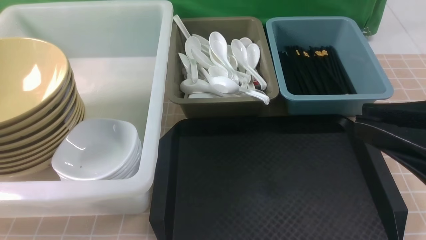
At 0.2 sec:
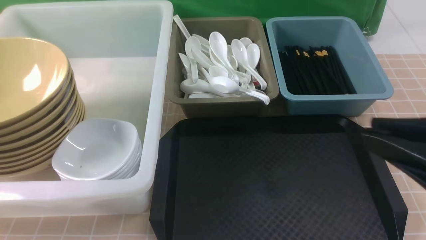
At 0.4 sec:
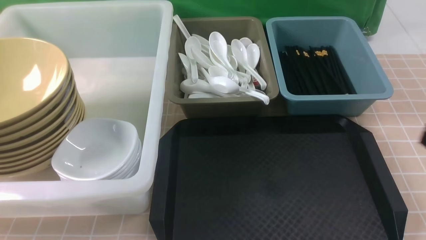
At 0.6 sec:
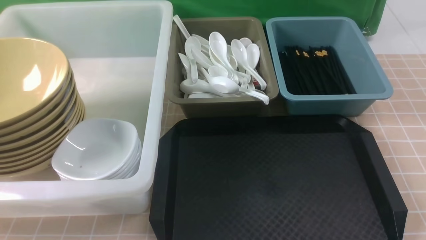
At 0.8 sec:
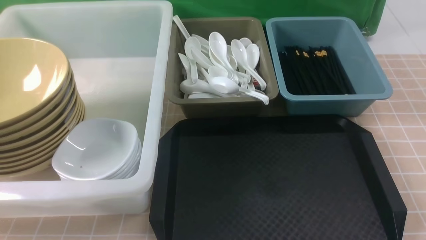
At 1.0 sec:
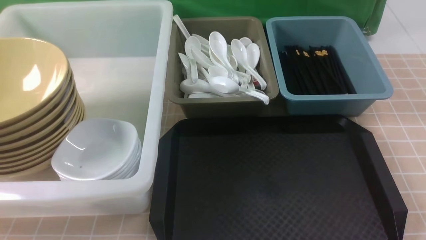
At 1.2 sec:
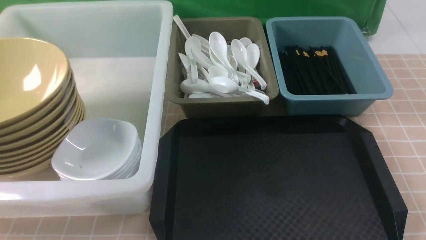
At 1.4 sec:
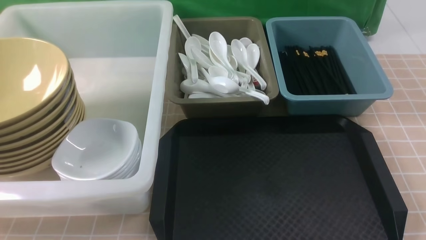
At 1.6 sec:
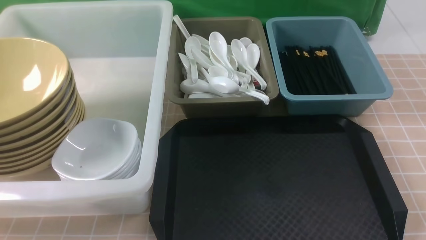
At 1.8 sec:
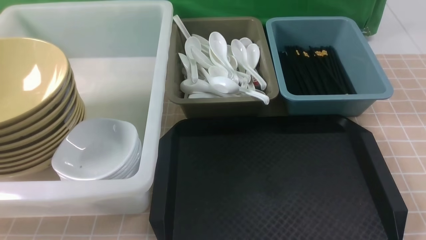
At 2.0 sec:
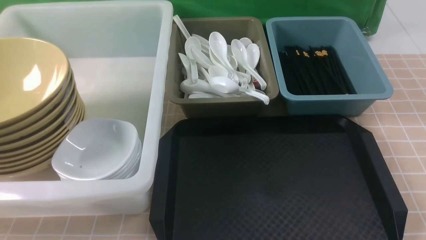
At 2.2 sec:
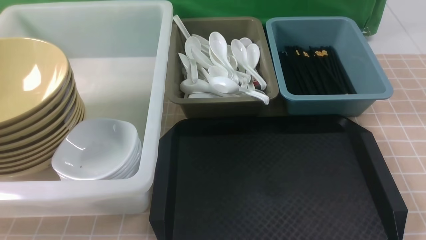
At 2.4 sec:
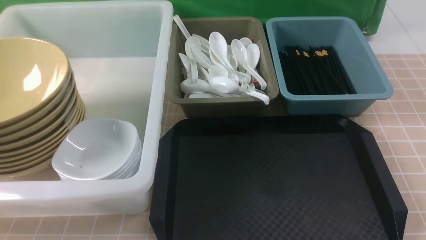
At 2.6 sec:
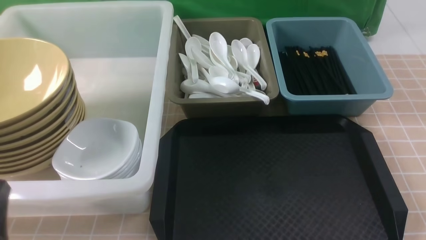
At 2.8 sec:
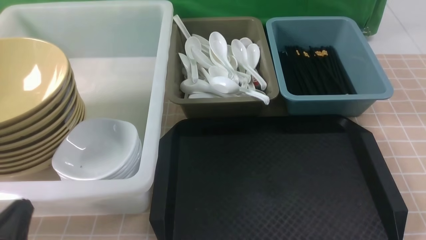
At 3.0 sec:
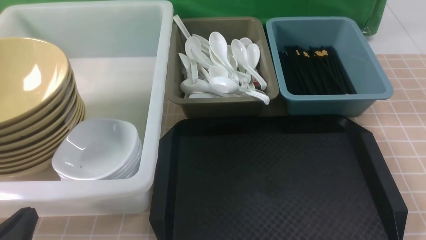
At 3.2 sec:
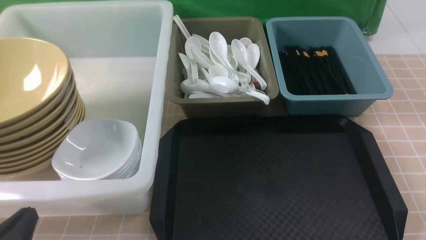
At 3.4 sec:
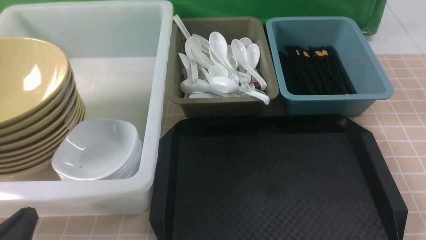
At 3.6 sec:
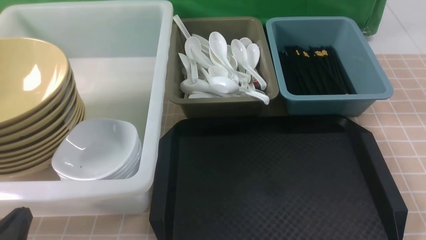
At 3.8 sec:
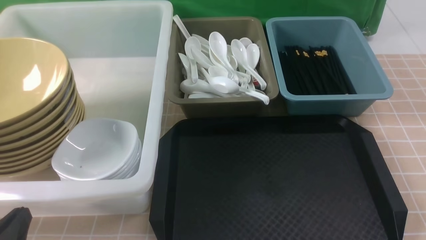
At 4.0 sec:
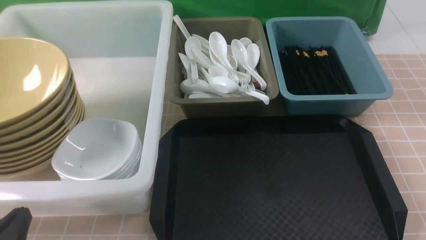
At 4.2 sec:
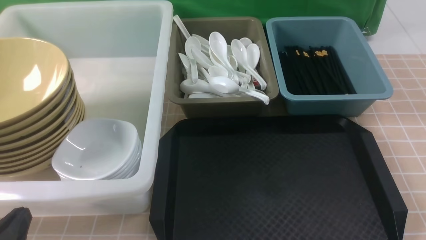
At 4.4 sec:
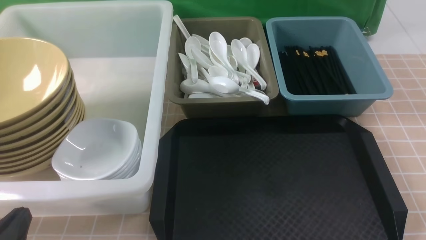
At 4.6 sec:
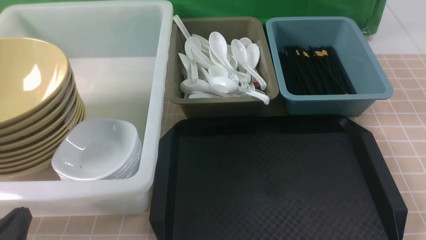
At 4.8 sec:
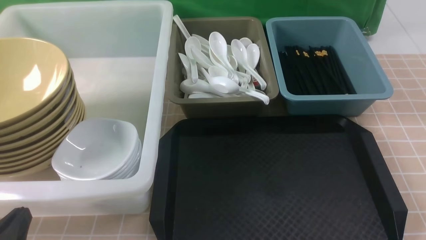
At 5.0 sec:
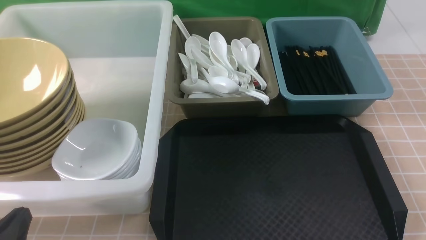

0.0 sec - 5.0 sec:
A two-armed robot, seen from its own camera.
Task of the whole recording: on brown table put chopsticks spoon bowls plates into blue grey white boxes.
0.0 sec - 1.6 sec: The right gripper travels downward and to the right by about 25 cm.
1.6 sec - 3.4 sec: The left gripper moves downward, some 15 cm.
3.4 sec - 5.0 sec: Both grippers stay about where they are.
